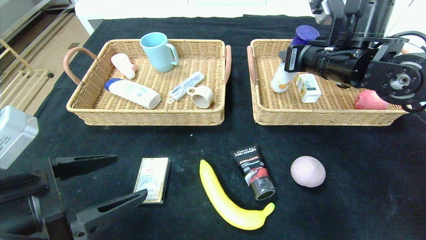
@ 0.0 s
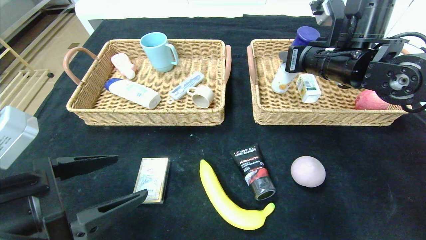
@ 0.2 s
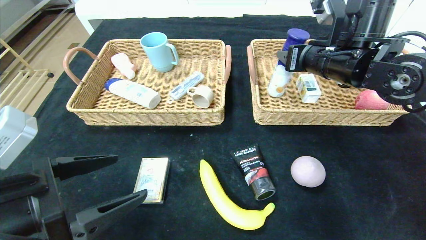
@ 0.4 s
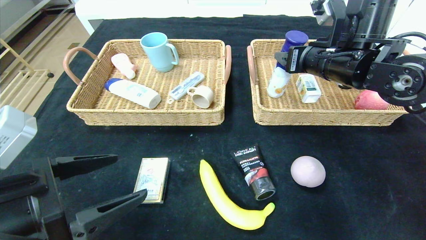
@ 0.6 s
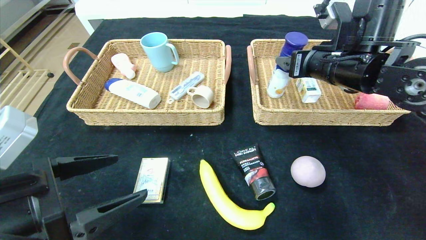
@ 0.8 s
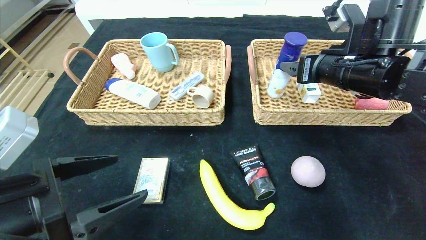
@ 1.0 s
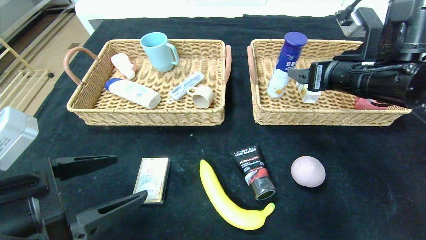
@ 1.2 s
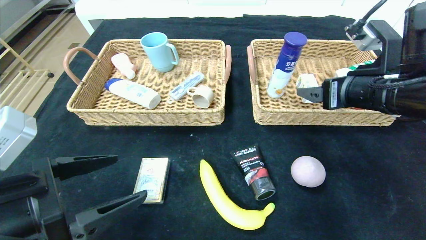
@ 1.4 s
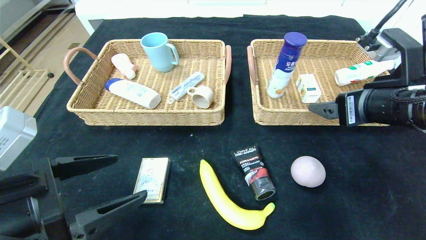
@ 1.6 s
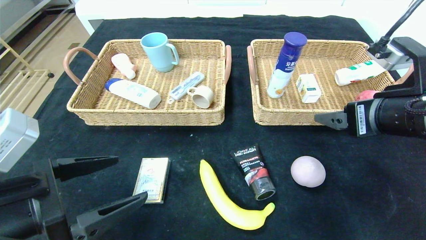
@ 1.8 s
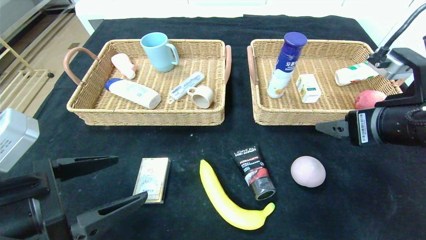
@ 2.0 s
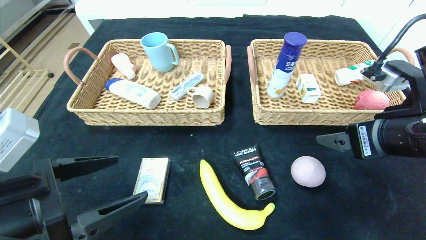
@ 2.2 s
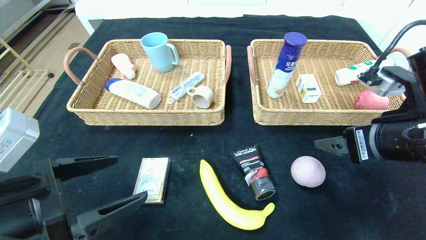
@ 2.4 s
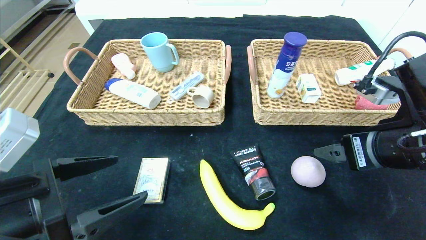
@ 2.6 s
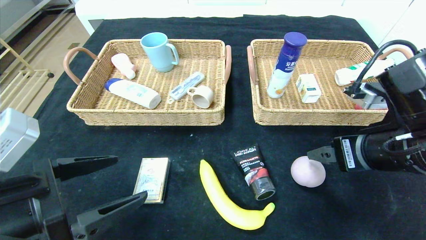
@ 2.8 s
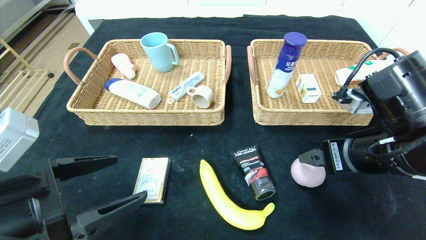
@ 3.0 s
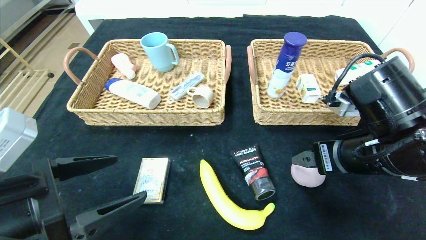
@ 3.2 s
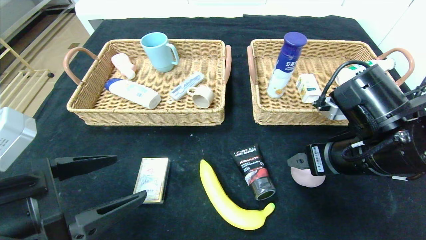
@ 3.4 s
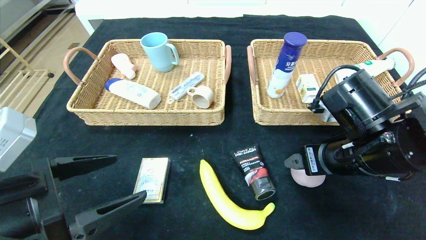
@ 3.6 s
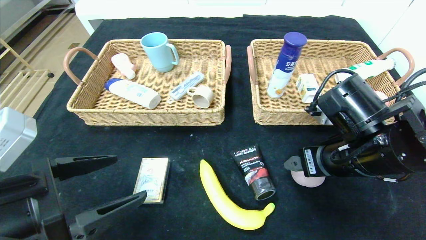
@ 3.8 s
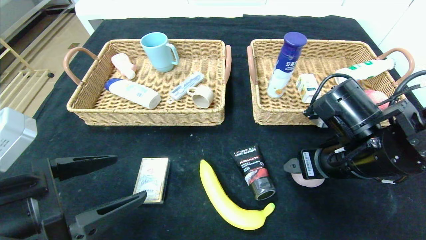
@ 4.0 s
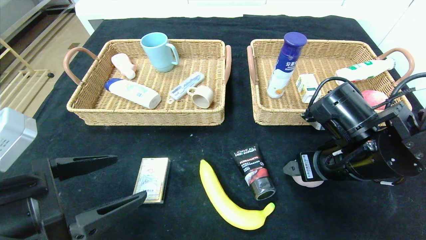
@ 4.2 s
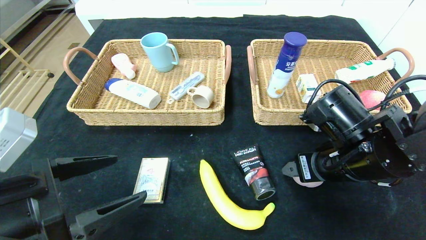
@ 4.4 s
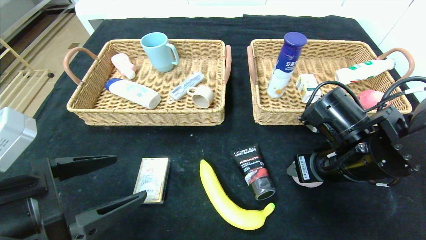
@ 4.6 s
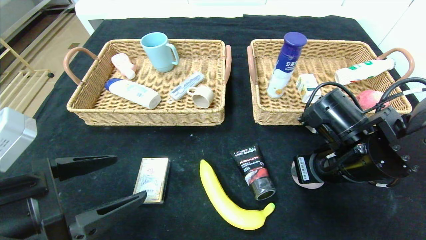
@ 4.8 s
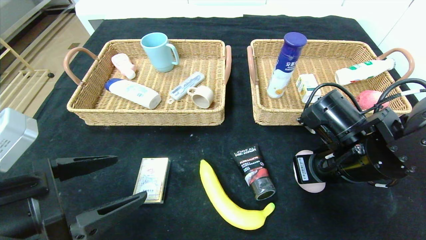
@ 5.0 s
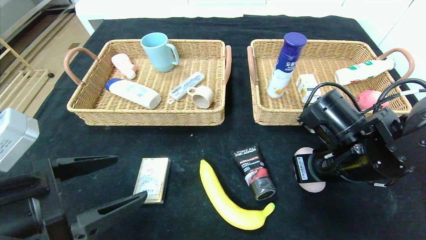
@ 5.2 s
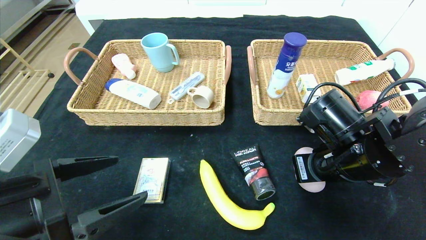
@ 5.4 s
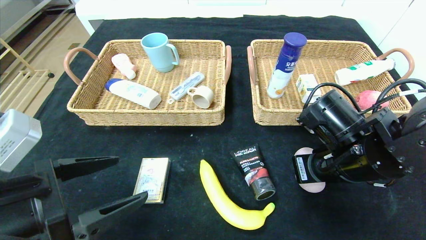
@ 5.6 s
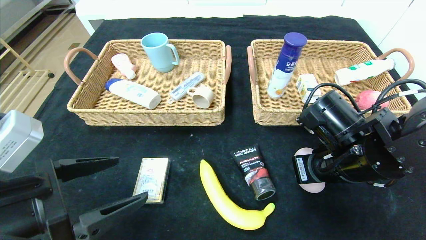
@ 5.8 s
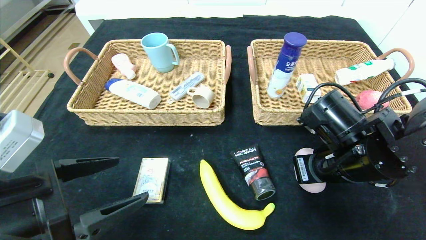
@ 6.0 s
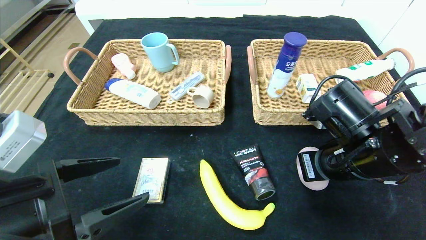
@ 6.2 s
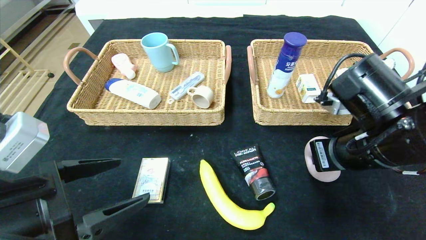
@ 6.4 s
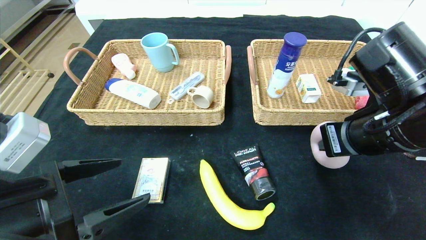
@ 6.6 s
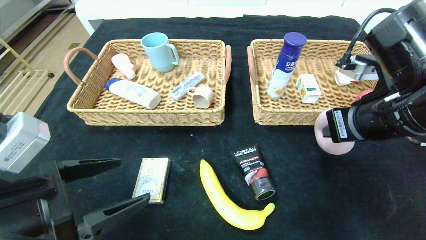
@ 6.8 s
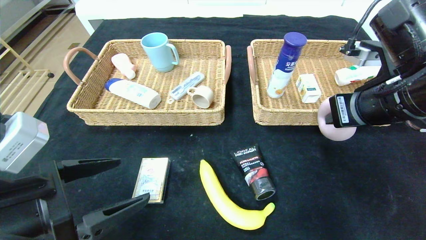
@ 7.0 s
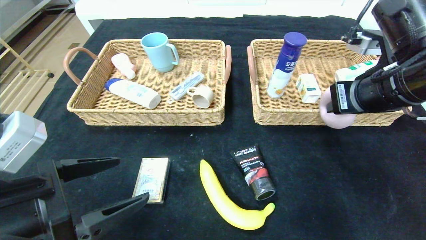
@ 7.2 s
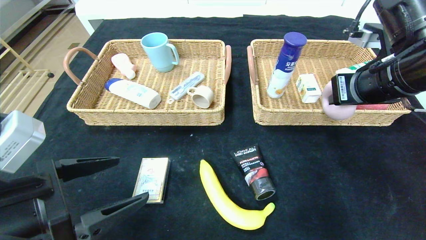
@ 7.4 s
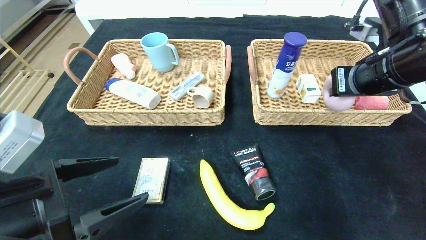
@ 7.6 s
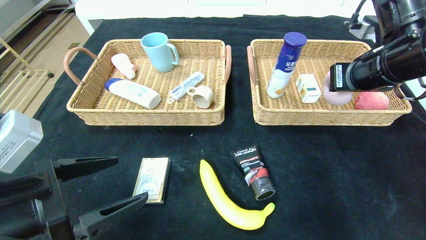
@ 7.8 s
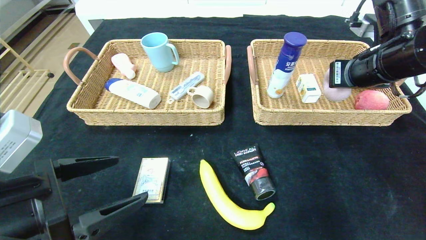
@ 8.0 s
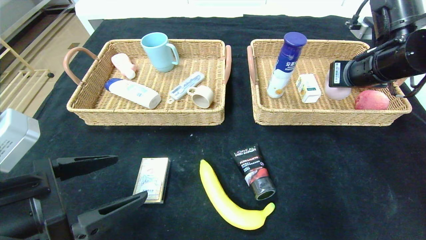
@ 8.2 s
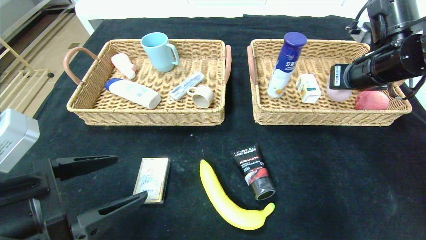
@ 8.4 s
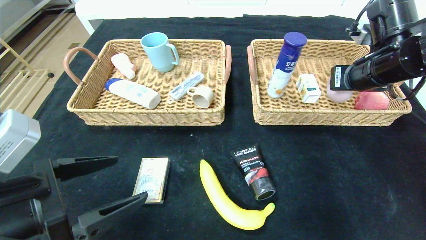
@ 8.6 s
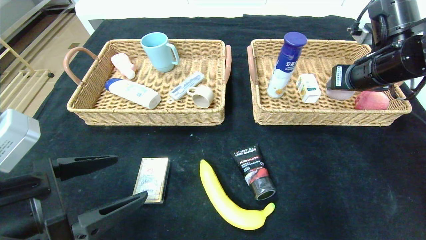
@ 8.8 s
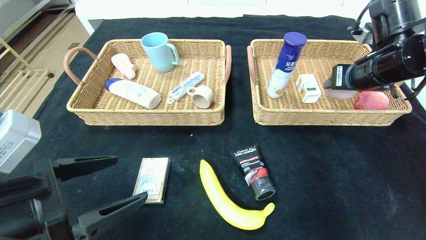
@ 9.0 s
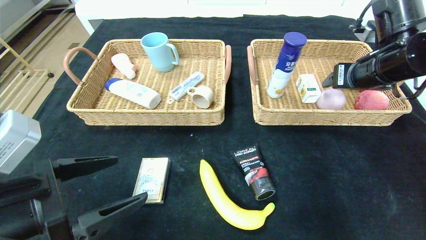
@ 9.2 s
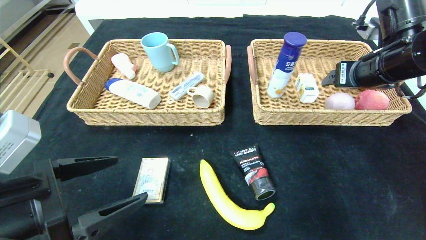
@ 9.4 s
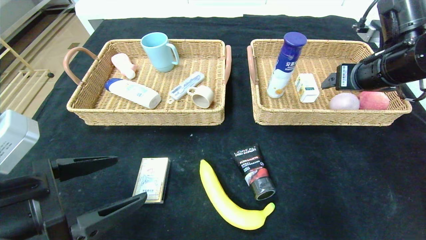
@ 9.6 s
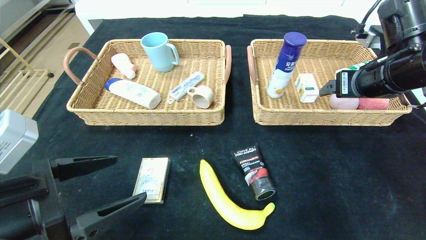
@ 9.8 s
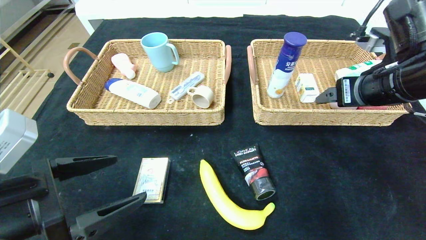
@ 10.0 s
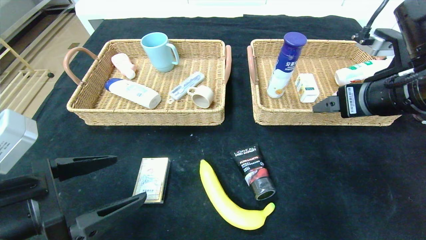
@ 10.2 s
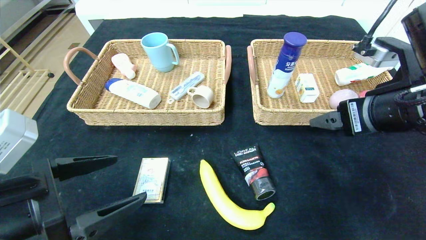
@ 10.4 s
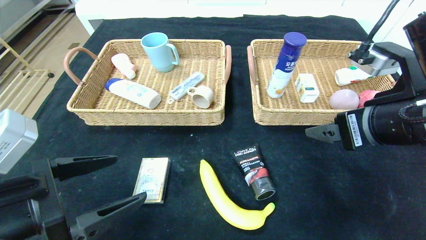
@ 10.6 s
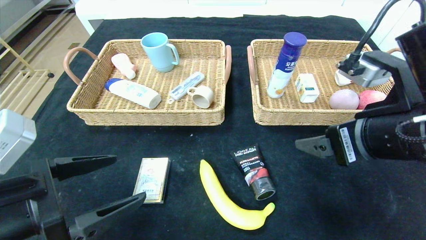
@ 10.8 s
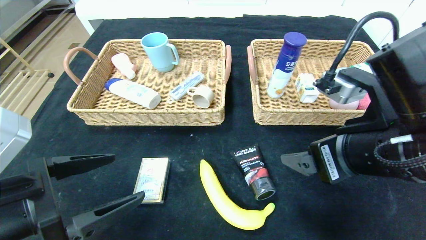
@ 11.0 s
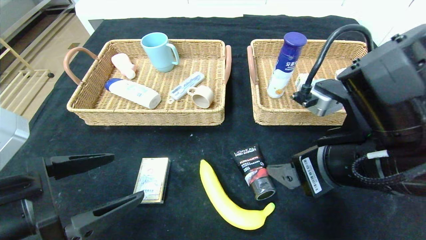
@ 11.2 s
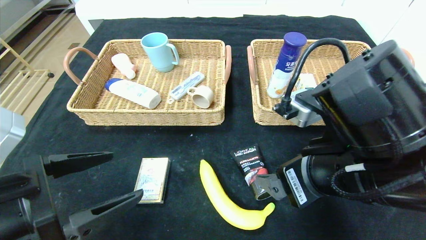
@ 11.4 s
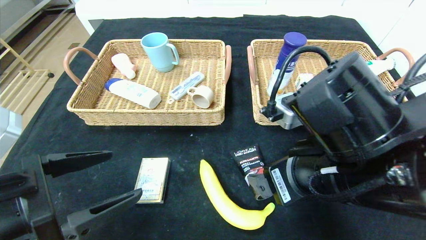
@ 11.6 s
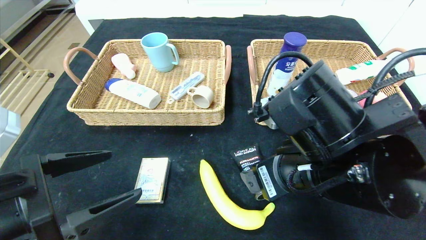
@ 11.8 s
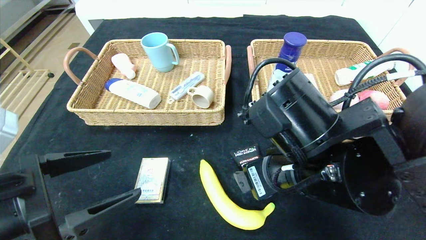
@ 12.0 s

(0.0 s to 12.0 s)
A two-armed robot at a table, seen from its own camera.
Step, 0.0 s - 2.4 s: Pick up the yogurt and put it in the right basket.
Step, 2.6 s - 10.8 s: Pick up the peach and put it in the right basket.
0.0 s - 1.6 s: The right gripper heads backward, covering about 15 cm, and opens its fingers.
1.6 s - 3.0 s: The right gripper moves roughly 5 cm.
3.0 s - 4.4 s: The right gripper changes place by roughly 5 cm.
4.4 s - 6.0 s: The right gripper closes its fingers.
6.0 s - 7.6 s: The right gripper heads upward and to the right, covering about 15 cm.
7.6 s - 9.0 s: The right gripper moves forward, approximately 5 cm, and opens its fingers.
9.0 s - 10.4 s: The right gripper goes roughly 10 cm backward, and opens.
10.4 s - 12.0 s: The right gripper is displaced to the left and downward by approximately 15 cm.

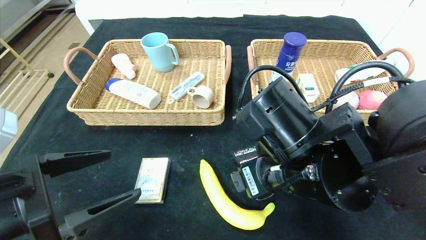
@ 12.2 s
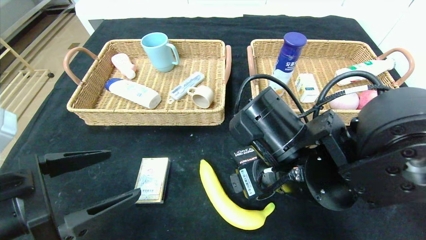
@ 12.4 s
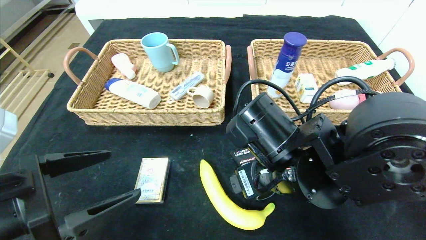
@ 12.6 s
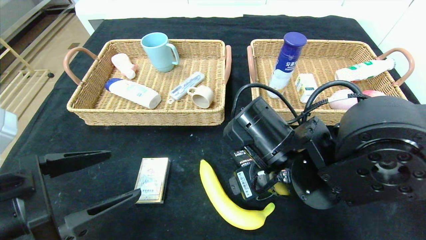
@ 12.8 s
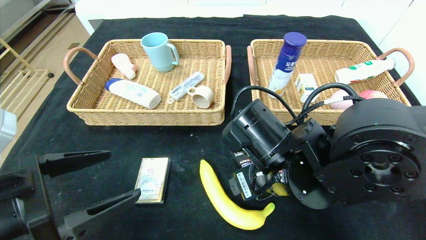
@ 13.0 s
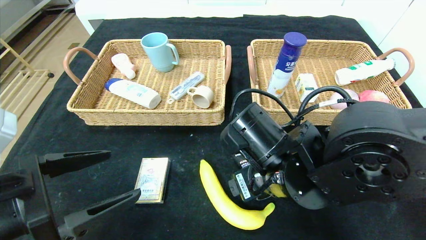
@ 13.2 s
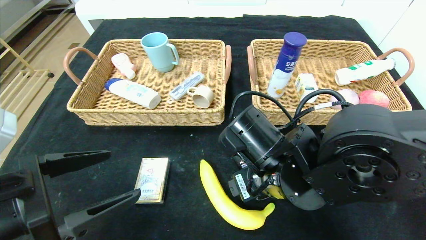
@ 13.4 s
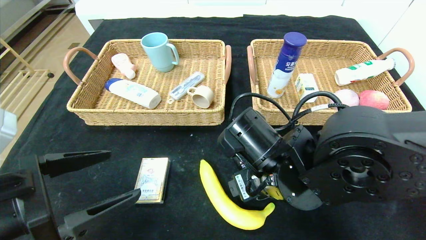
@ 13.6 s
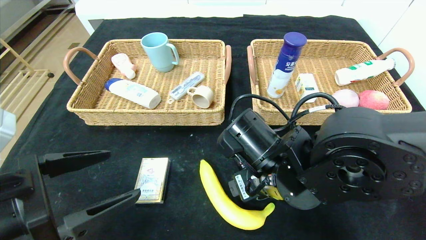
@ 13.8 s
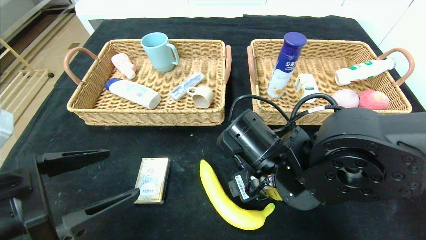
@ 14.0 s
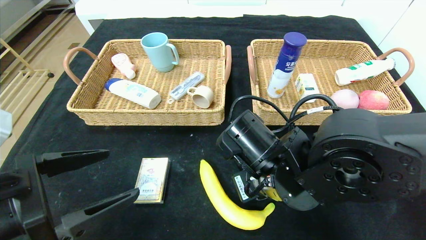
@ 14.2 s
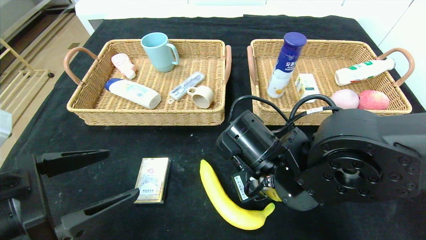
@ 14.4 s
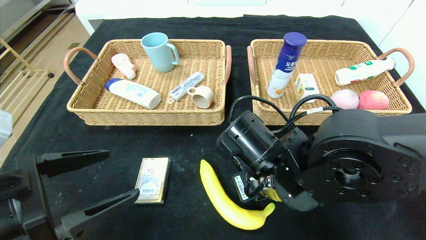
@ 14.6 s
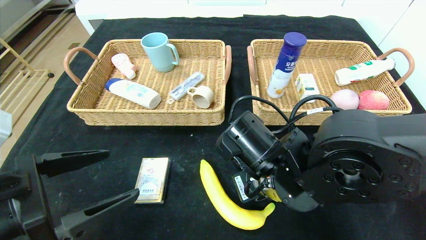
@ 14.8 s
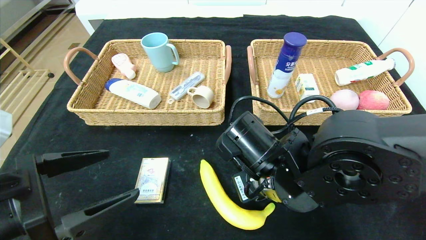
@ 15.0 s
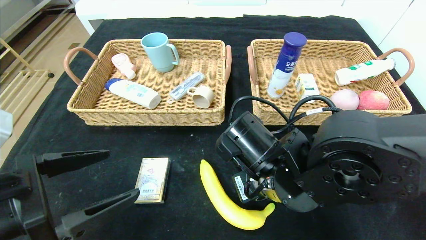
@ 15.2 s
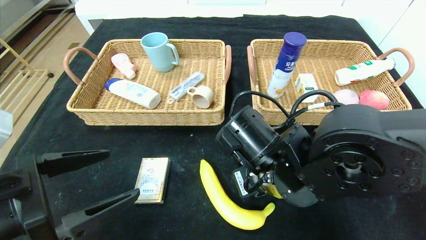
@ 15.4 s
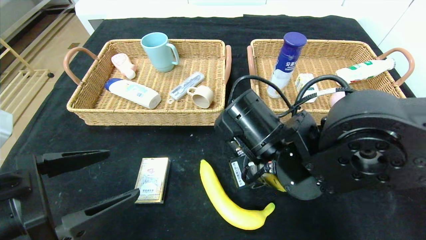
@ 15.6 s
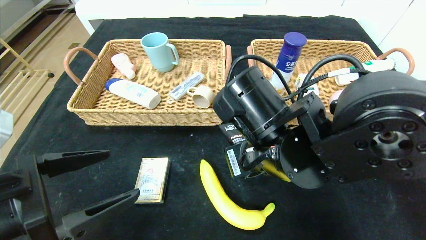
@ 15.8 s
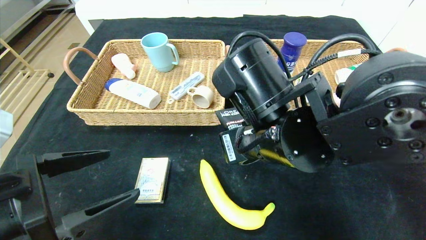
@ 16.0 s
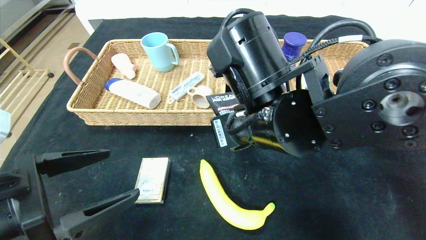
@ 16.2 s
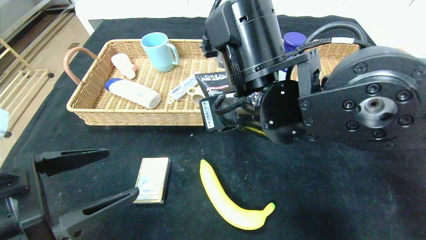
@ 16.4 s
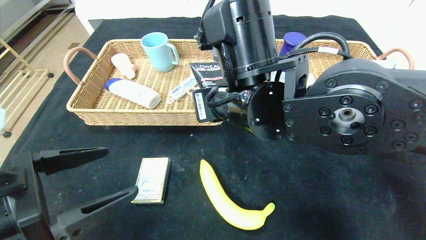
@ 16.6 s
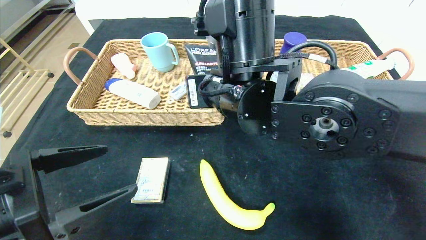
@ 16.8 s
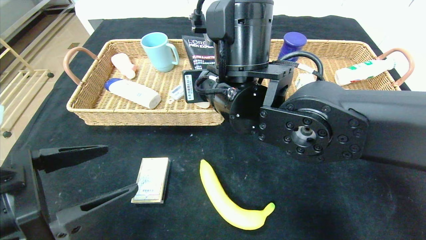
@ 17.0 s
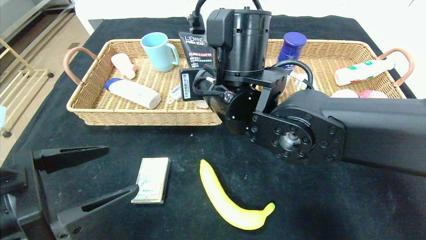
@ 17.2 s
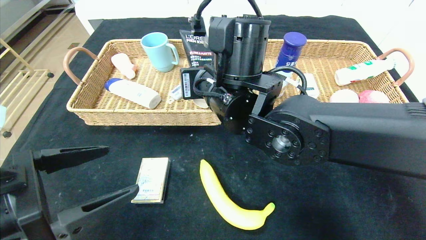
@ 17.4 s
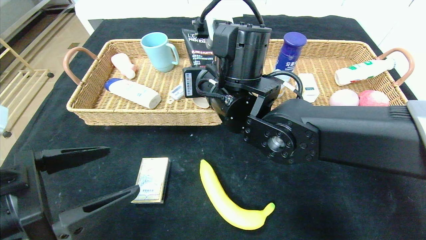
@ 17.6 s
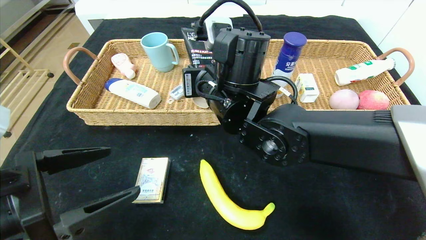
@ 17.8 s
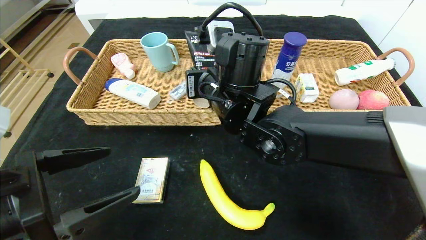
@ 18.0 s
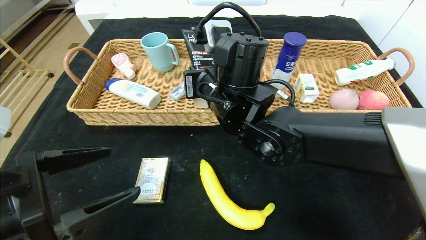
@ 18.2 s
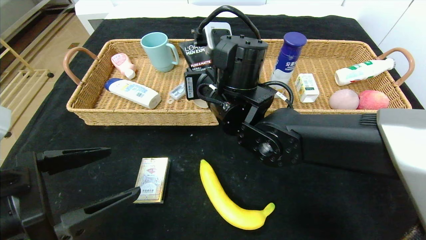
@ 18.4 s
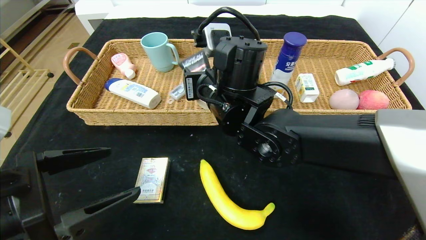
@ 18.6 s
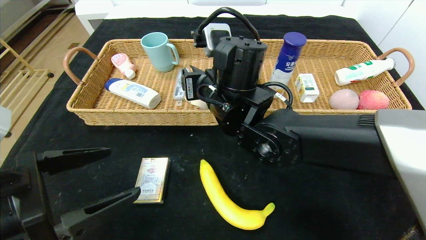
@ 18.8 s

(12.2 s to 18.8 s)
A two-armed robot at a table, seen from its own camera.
12.2 s - 13.8 s: The grippers move only a little.
13.8 s - 15.4 s: The right gripper closes up.
15.4 s - 17.2 s: The right gripper travels upward, to the left and forward by roughly 15 cm.
17.2 s - 18.8 s: The right gripper opens its fingers.
